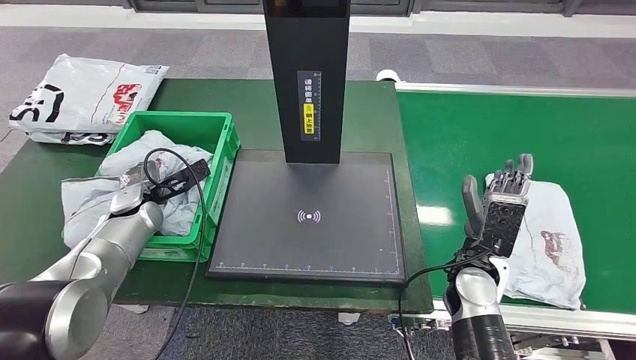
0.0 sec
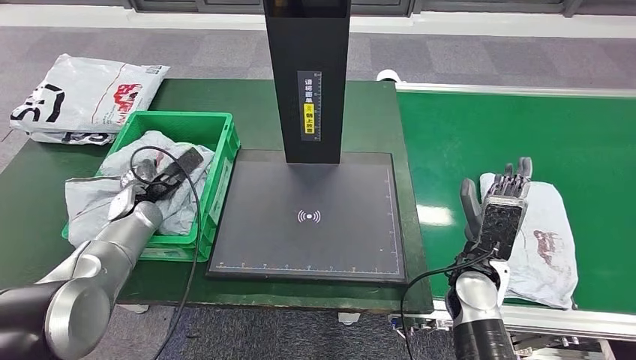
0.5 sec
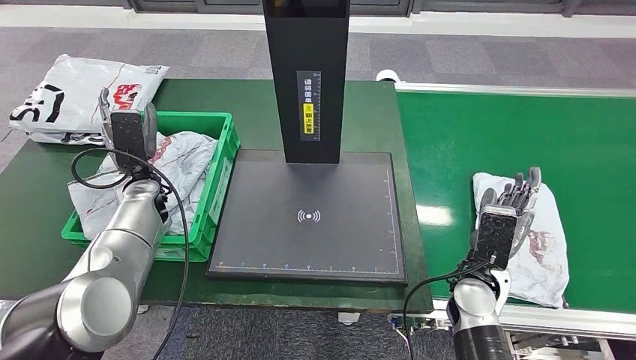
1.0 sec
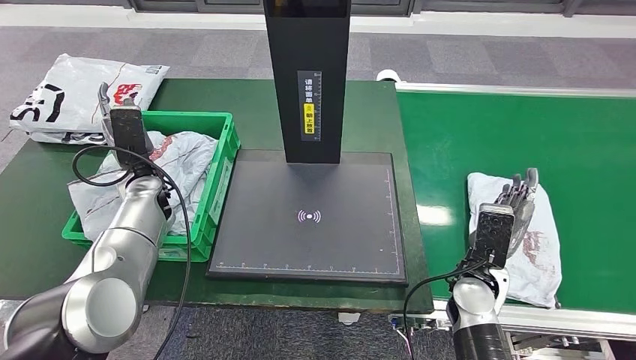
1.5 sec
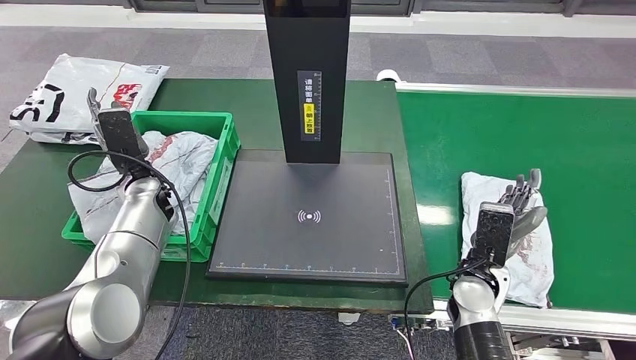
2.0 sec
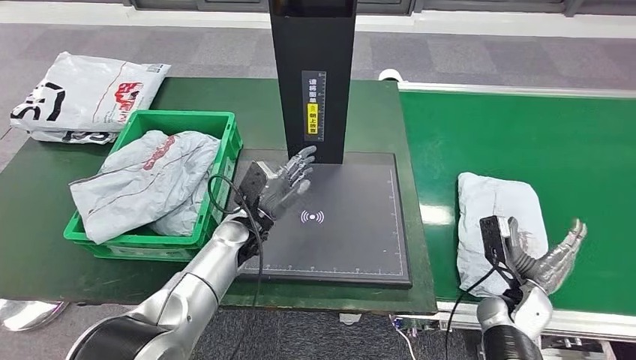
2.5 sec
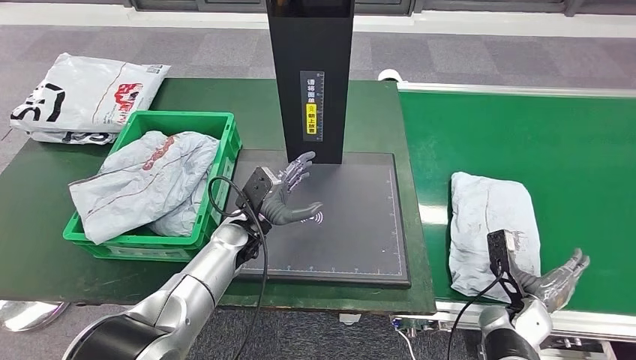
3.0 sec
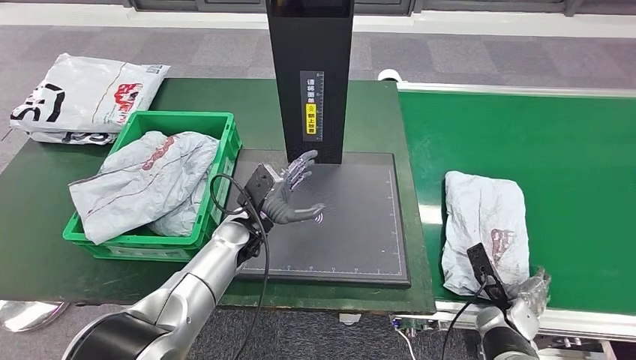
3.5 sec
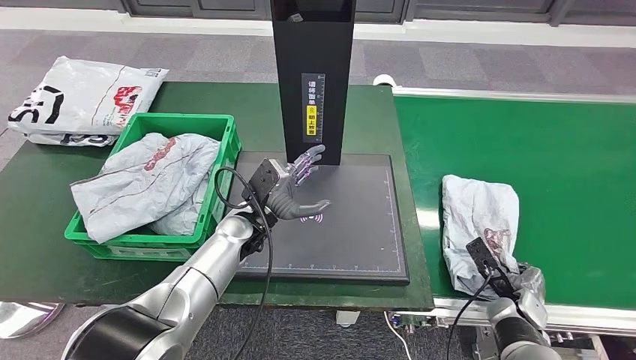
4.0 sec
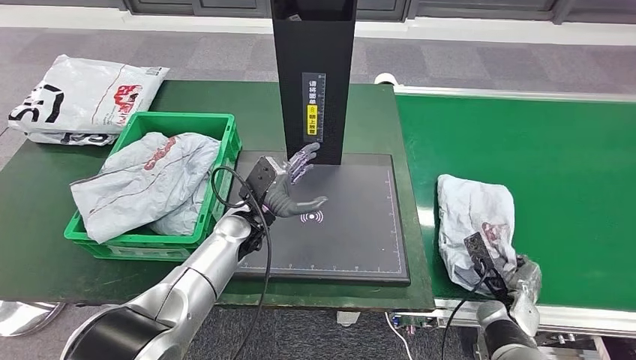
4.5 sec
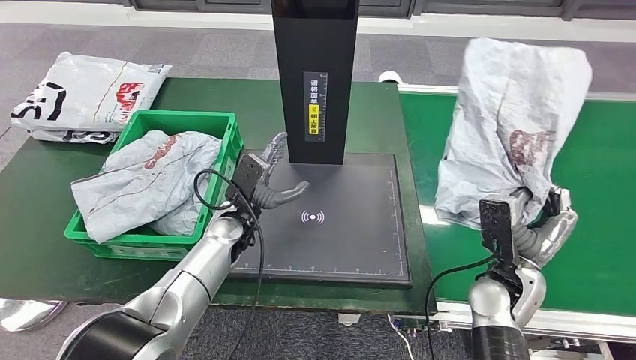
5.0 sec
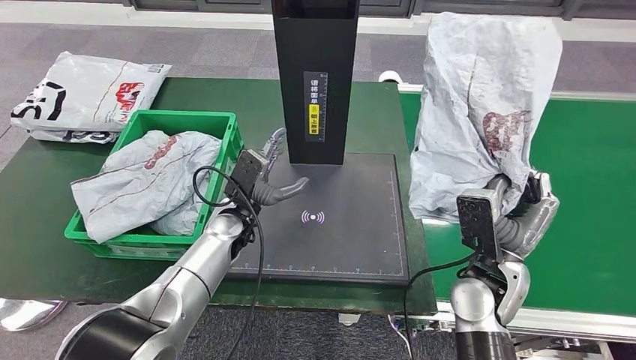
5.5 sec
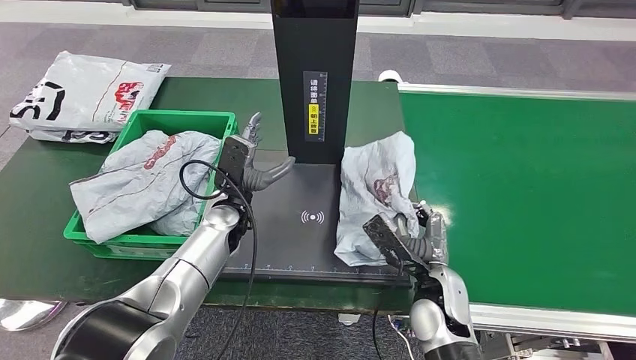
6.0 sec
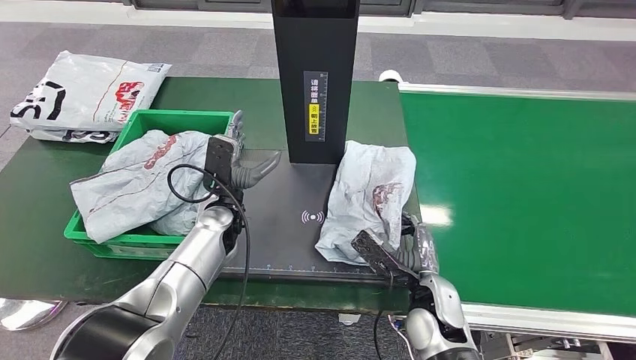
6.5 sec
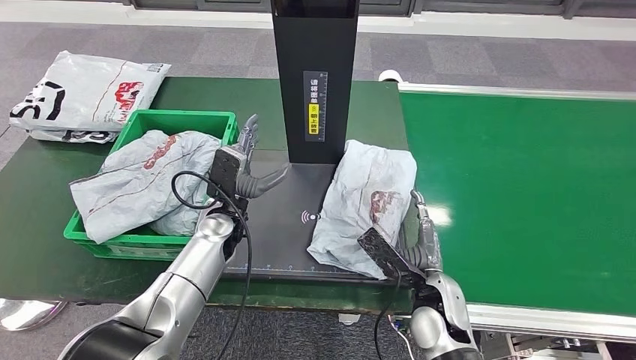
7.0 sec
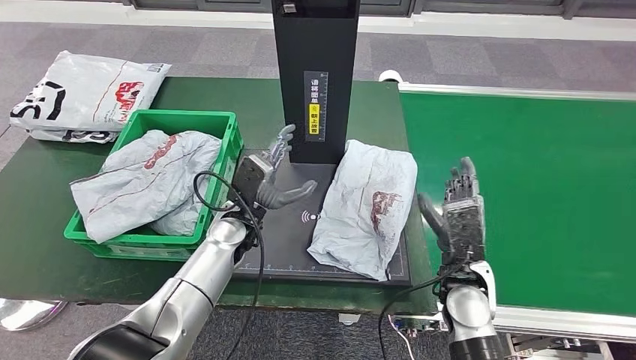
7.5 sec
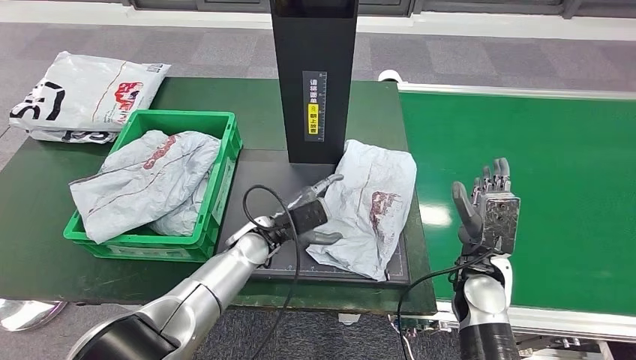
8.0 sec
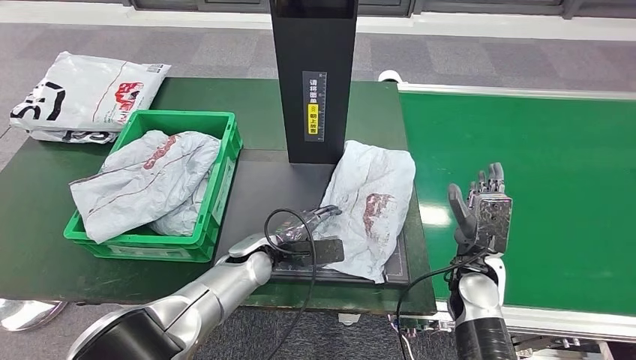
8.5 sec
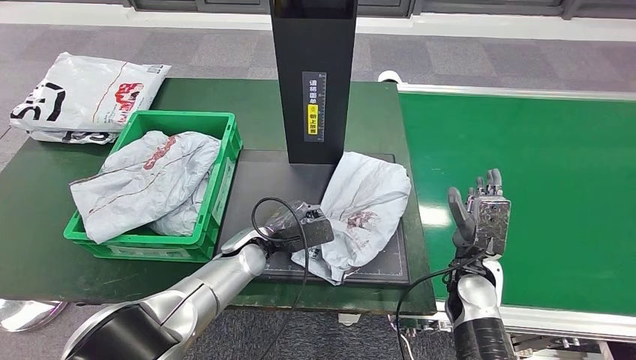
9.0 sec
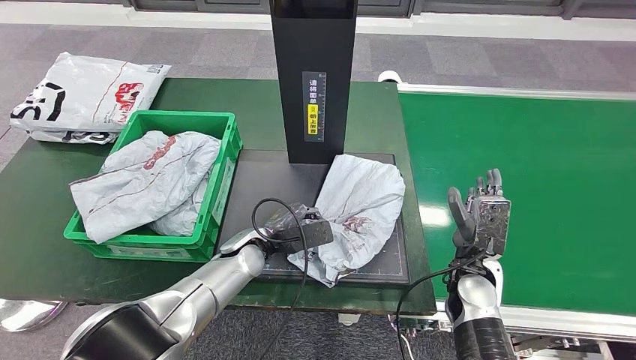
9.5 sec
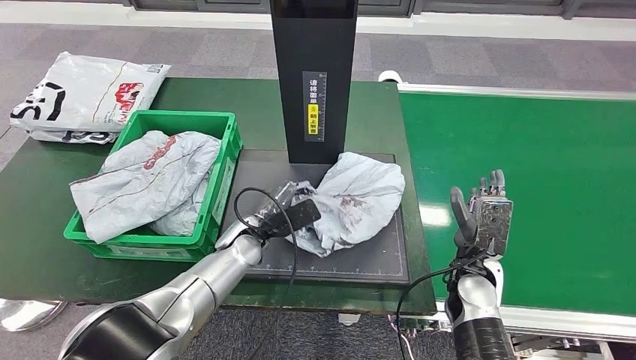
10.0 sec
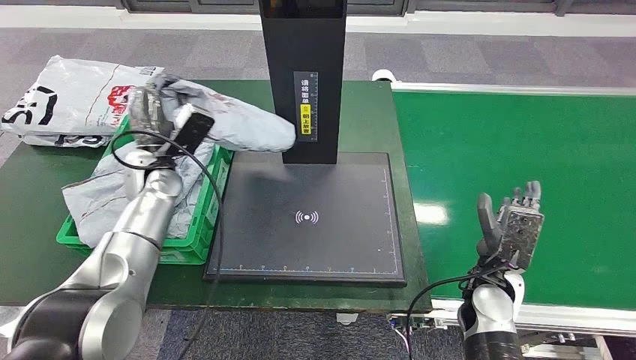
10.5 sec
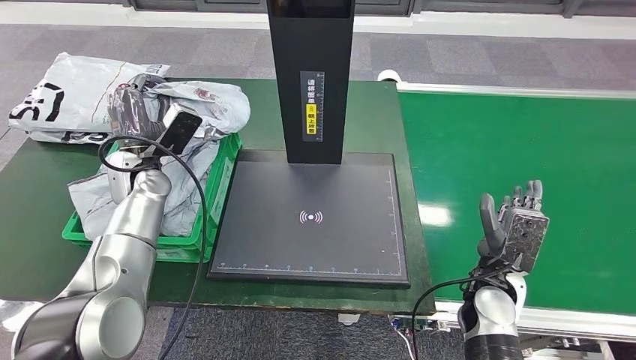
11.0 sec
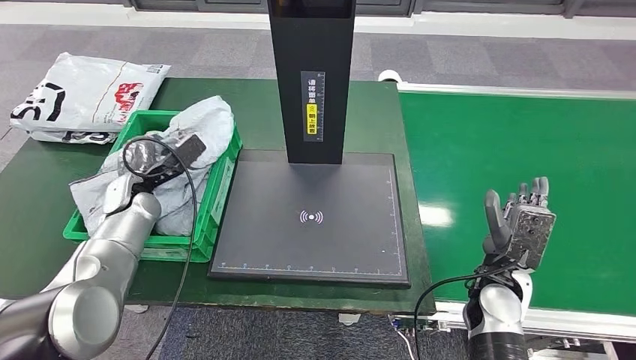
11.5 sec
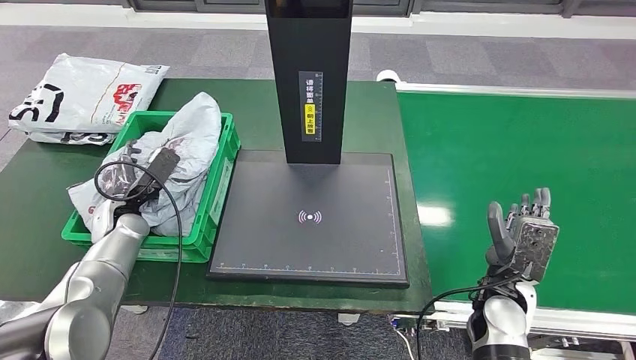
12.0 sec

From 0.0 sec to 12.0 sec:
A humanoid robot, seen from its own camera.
Step, from 1.5 sec to 5.0 sec: Pick up the parcel from the conveyor belt.
Step, from 5.5 sec to 8.0 sec: Place the parcel onto the inbound machine.
Step, from 8.5 sec to 10.0 sec: Pick up the parcel from the inbound machine.
From 0.0 sec to 2.0 sec: The left hand shifts by some 5 cm.
From 6.0 sec to 8.0 sec: The right hand moves to the right, some 5 cm, while the left hand moves approximately 5 cm.

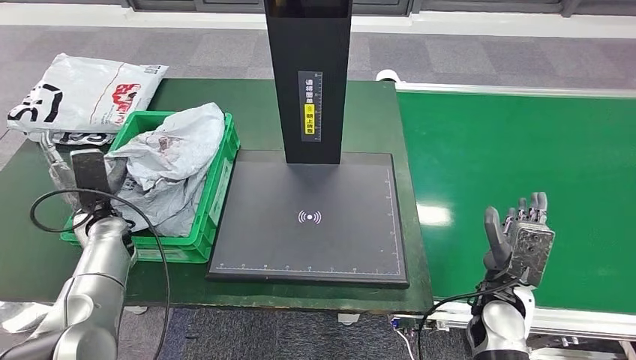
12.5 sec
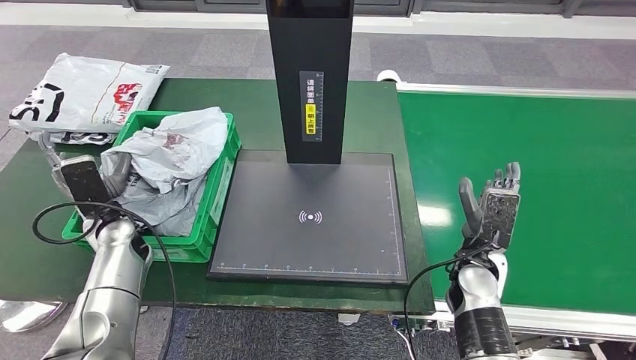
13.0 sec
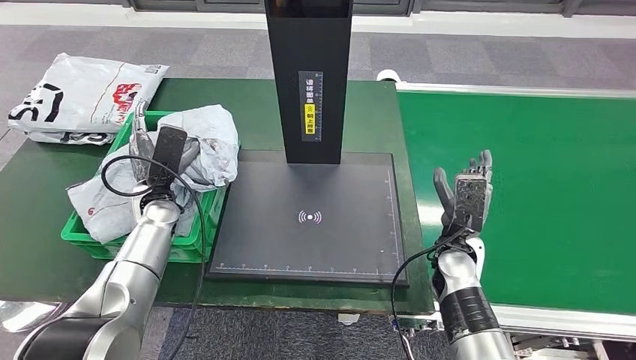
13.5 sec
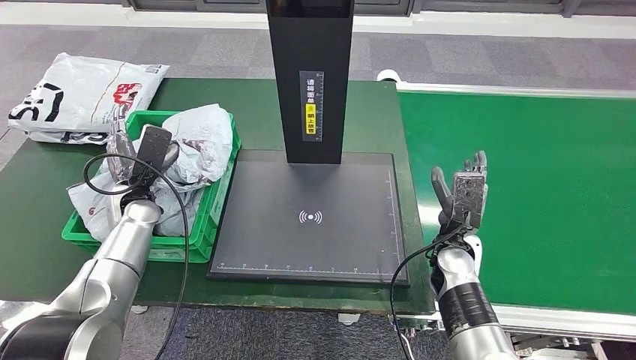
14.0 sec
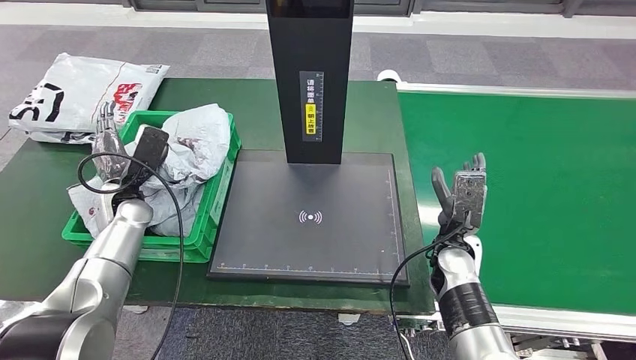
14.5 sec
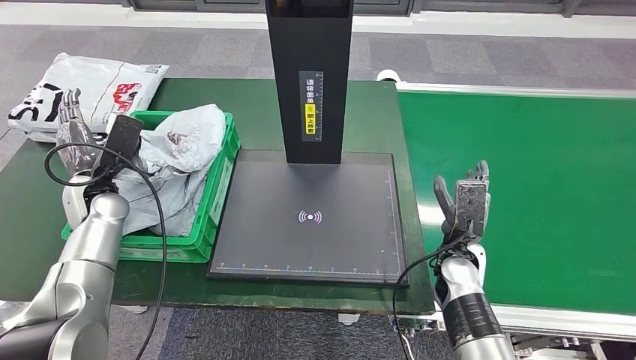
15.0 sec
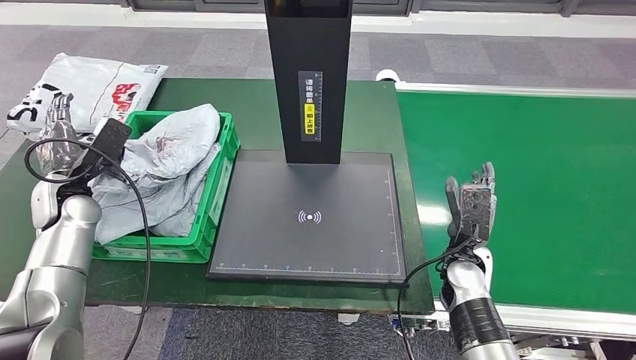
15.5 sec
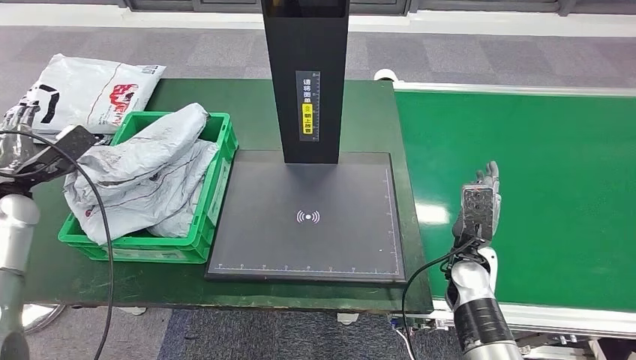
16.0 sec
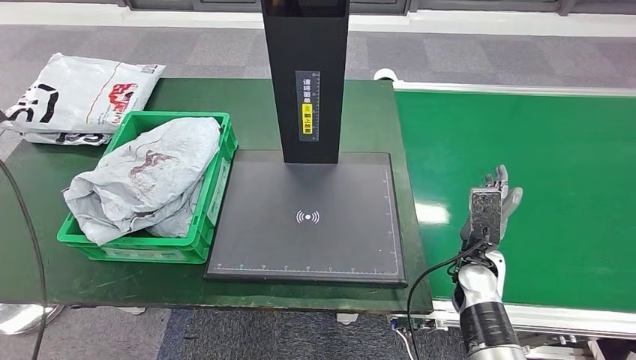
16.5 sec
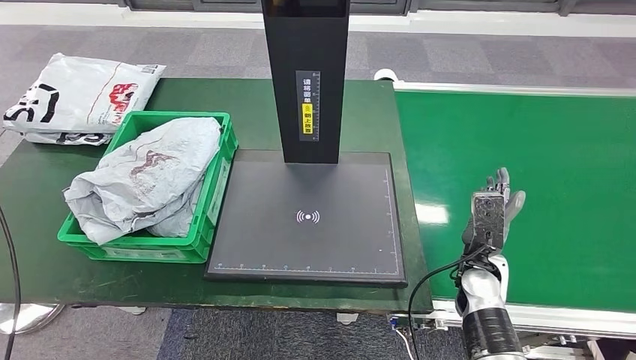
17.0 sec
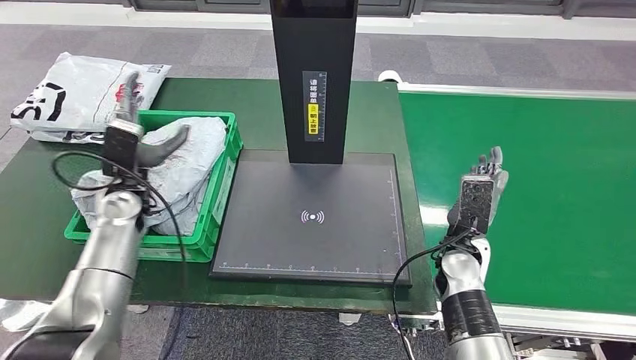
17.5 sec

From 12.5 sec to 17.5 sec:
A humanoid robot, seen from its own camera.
Step, from 12.5 sec to 17.5 sec: Place the parcel into the delivery box.
From 12.5 sec to 15.0 sec: The left hand heads upward, covering roughly 5 cm, and travels to the right and back again, some 10 cm each way. Meanwhile the right hand goes some 5 cm forward.
From 15.0 sec to 17.5 sec: The left hand reaches about 25 cm to the left, then returns.

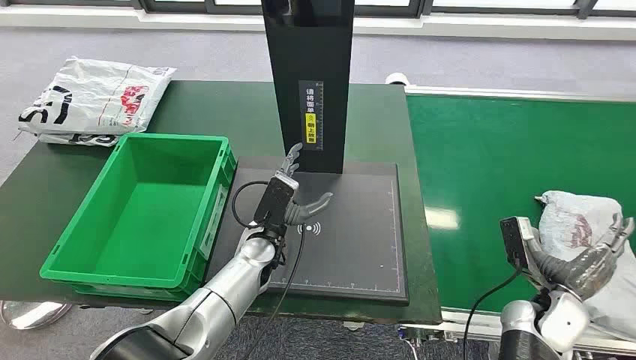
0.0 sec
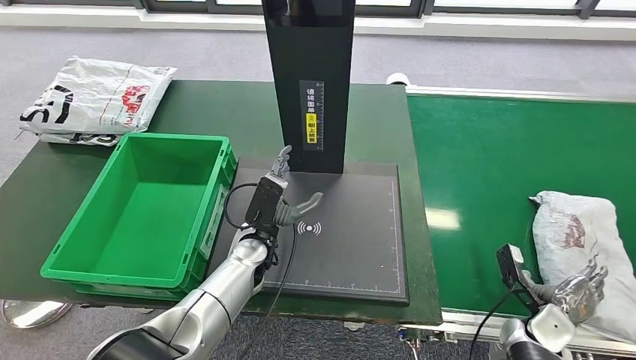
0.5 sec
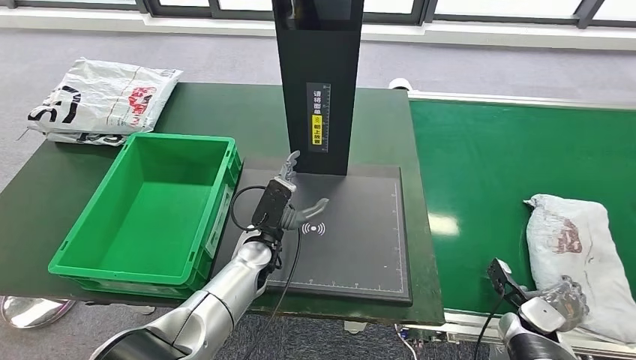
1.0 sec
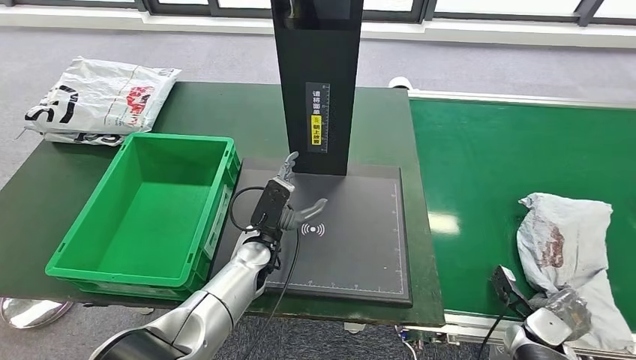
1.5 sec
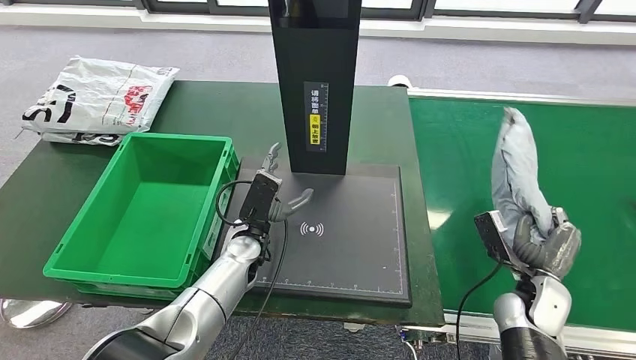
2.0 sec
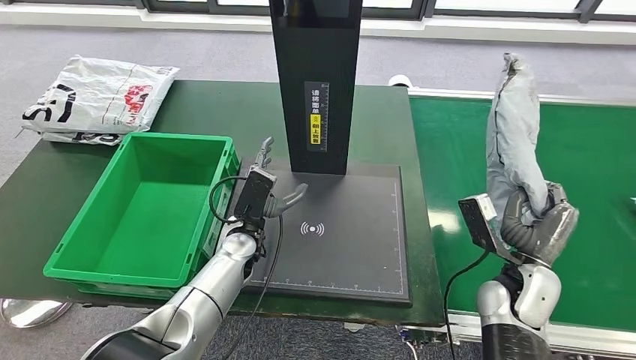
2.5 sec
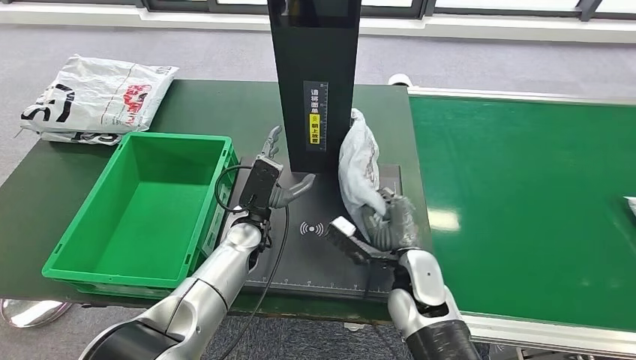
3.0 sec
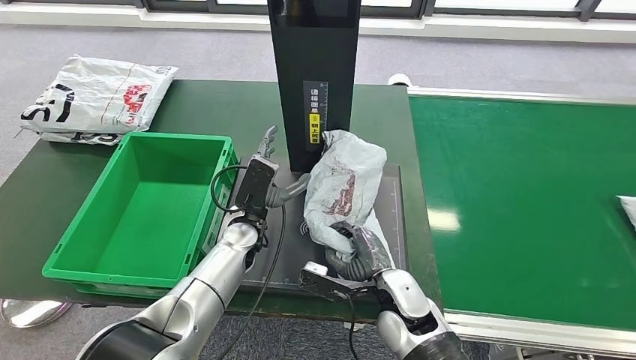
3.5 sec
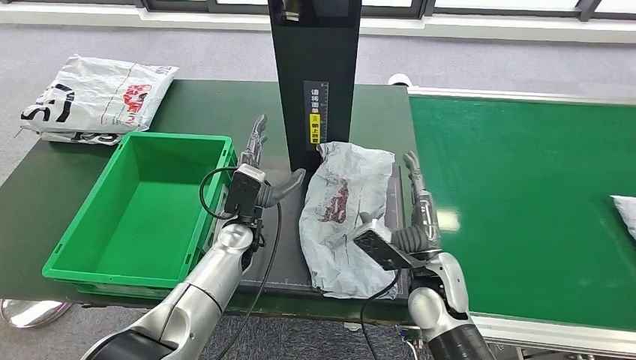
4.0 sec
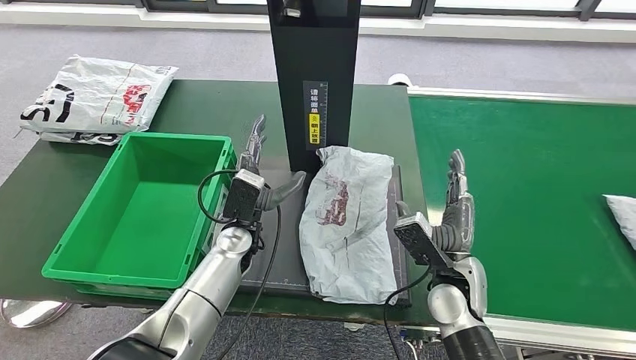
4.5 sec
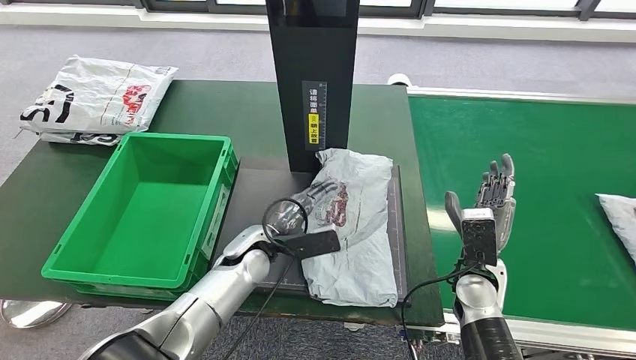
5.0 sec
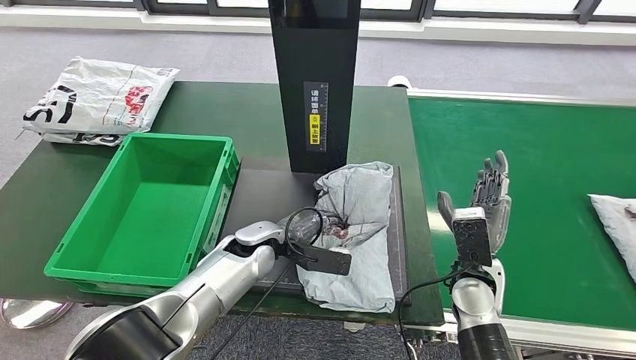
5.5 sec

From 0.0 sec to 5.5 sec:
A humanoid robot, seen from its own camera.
Step, from 0.0 sec to 2.0 sec: Take the parcel off the conveyor belt.
Step, from 2.5 sec to 4.5 sec: Place the parcel onto the inbound machine.
